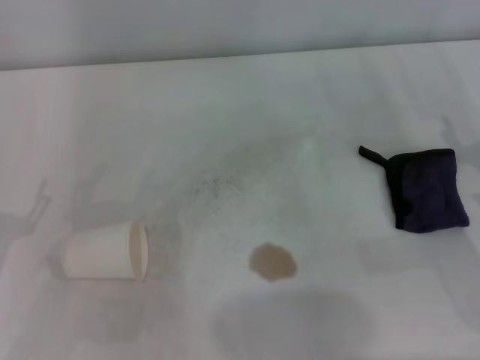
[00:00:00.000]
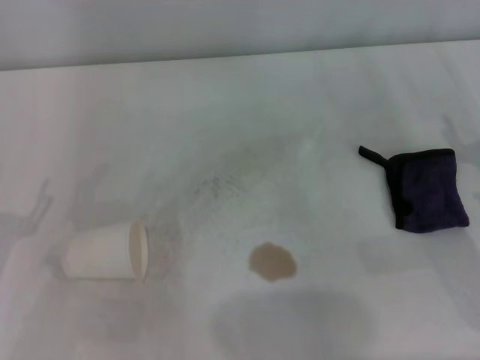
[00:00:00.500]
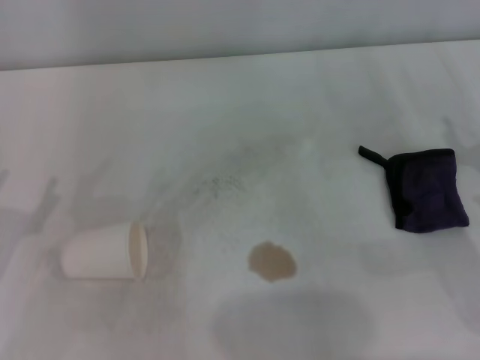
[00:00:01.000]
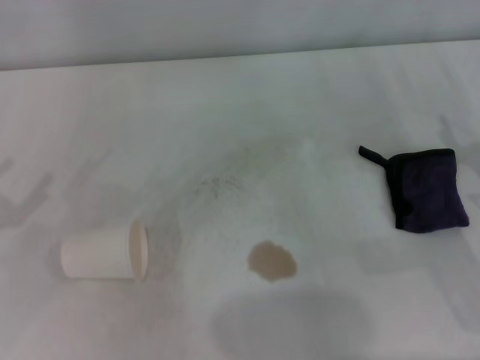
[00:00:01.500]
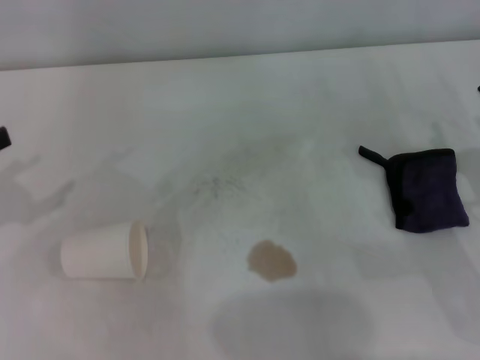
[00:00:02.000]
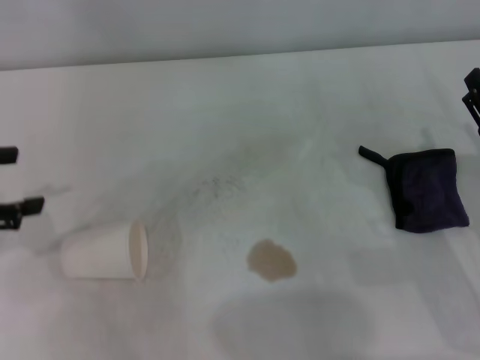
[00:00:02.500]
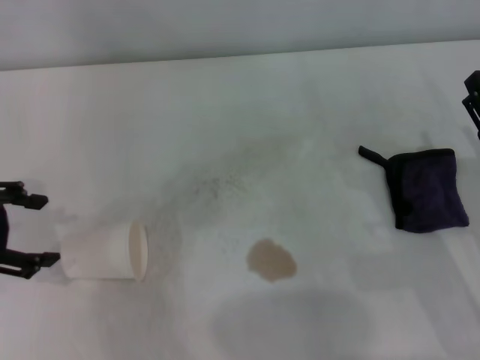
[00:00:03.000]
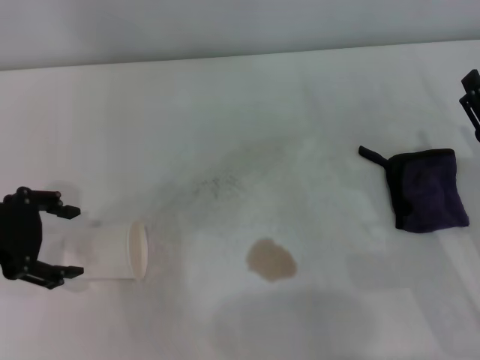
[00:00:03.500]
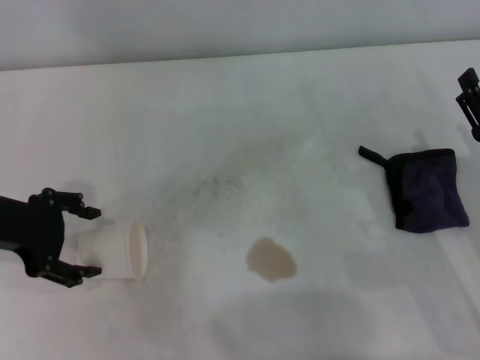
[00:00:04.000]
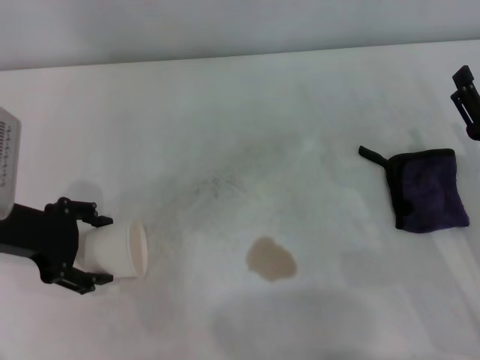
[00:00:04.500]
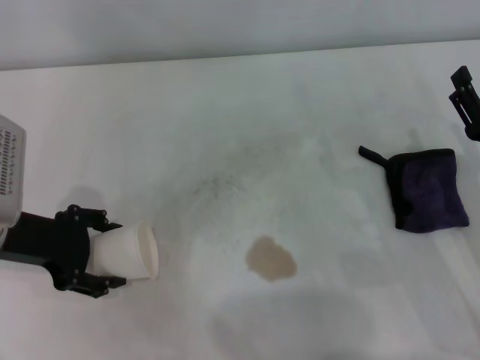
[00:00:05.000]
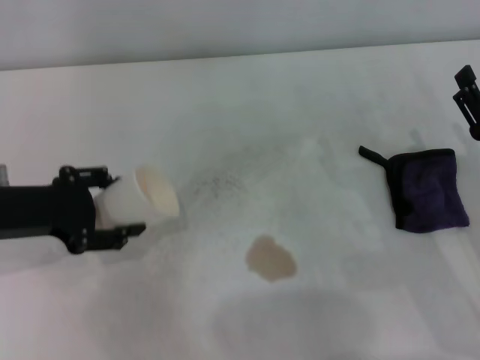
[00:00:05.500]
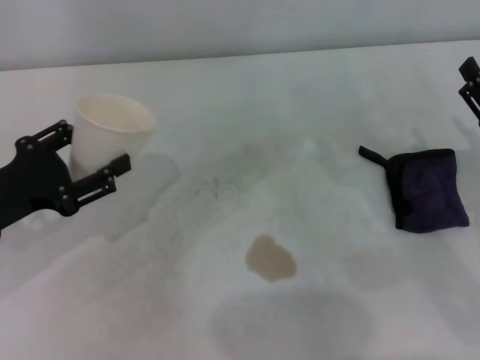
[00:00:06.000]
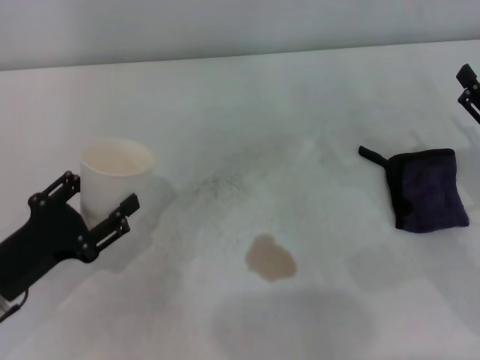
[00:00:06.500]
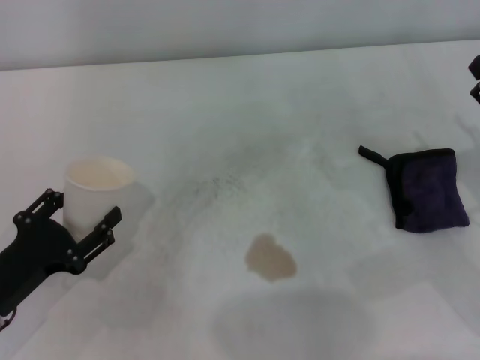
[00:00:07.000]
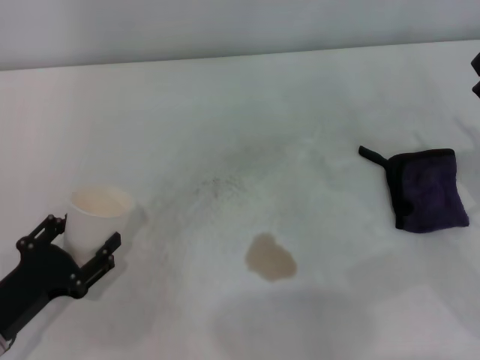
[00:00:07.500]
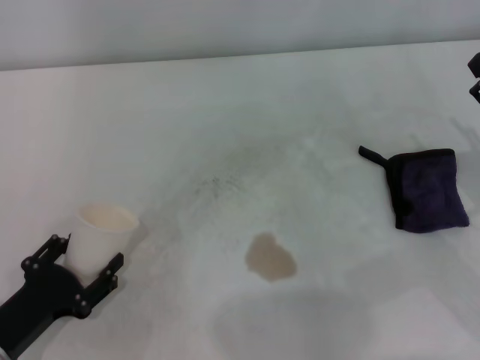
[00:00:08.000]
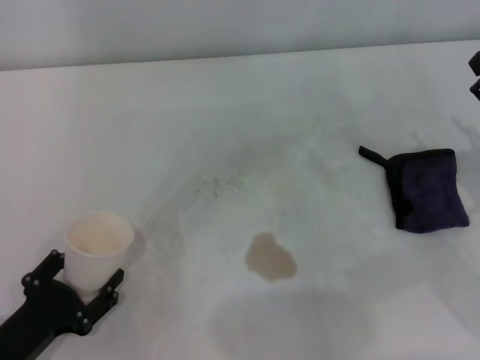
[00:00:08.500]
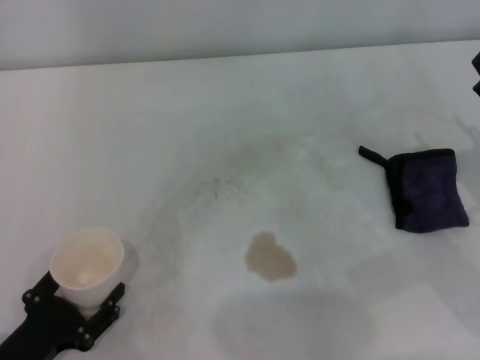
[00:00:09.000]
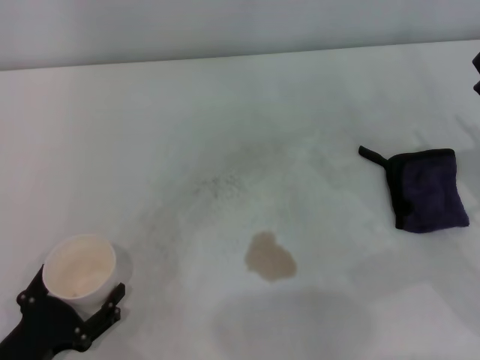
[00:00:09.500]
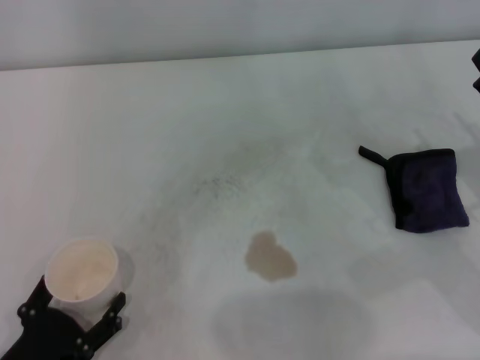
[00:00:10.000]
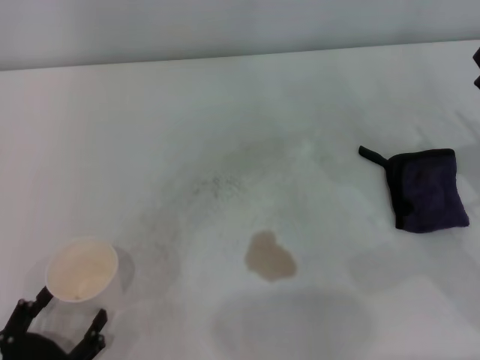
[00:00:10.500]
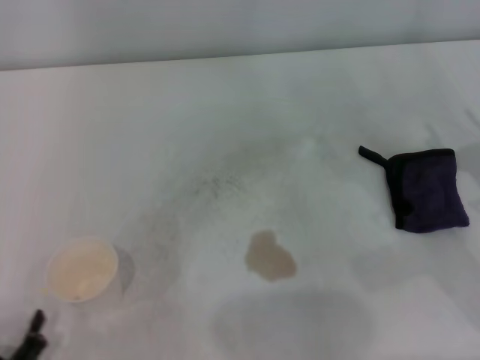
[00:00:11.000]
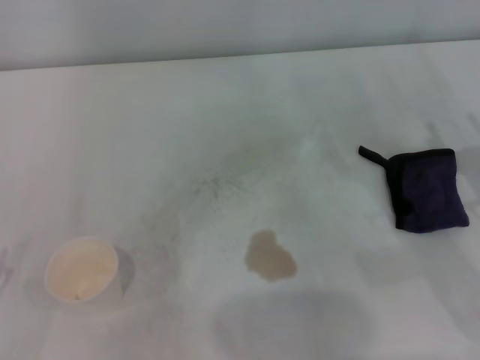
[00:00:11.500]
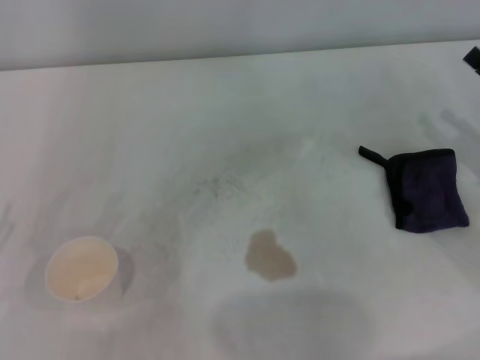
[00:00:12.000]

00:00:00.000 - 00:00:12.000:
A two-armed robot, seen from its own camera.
Step, 00:00:00.000 - 00:00:04.500: Grasp the paper cup with the left gripper.
Step, 00:00:05.000 - 00:00:09.500: Stand the paper cup upright with the left gripper.
00:00:02.000 - 00:00:04.000: The left gripper shifts about 10 cm to the right.
00:00:04.000 - 00:00:06.000: The left gripper shifts by some 5 cm, and closes.
00:00:06.000 - 00:00:08.000: The left gripper heads downward and backward, covering about 15 cm.
00:00:08.000 - 00:00:10.000: The left gripper goes roughly 5 cm backward, and opens.
00:00:10.000 - 00:00:12.000: The left gripper heads to the left and upward, covering roughly 10 cm.

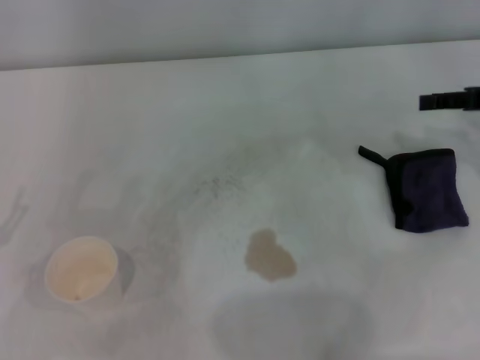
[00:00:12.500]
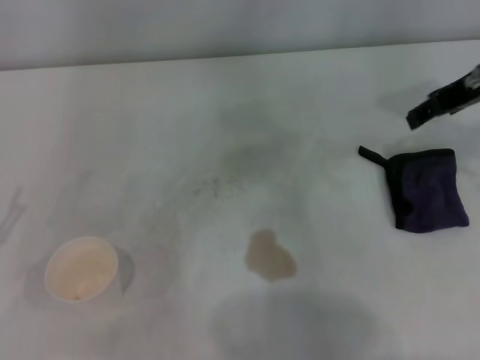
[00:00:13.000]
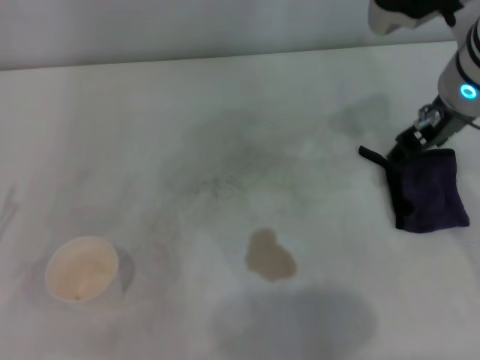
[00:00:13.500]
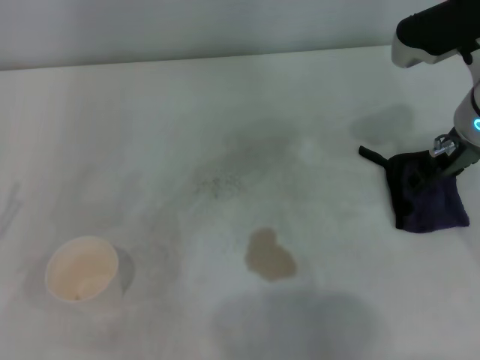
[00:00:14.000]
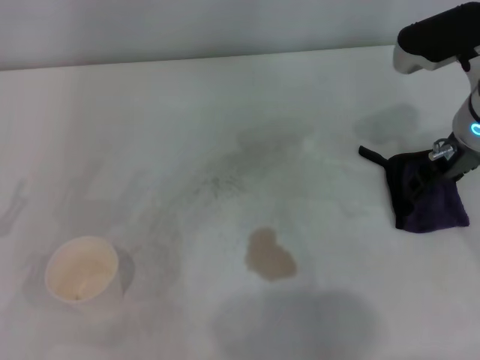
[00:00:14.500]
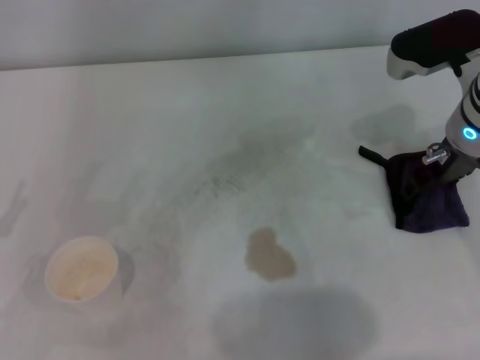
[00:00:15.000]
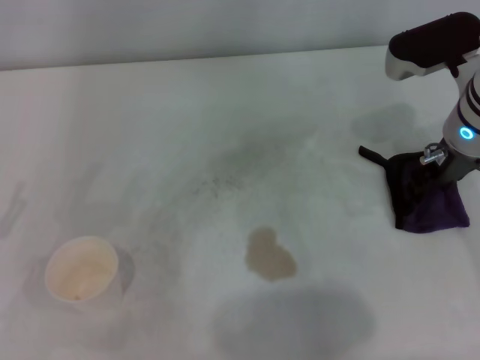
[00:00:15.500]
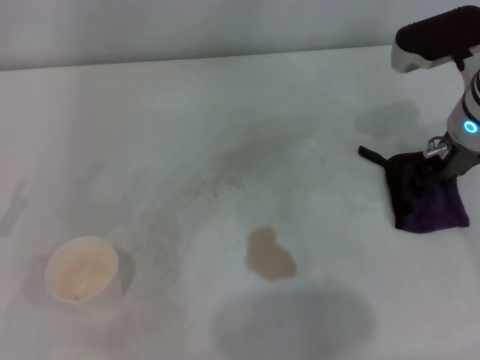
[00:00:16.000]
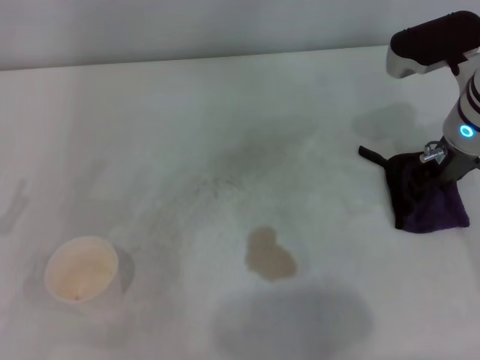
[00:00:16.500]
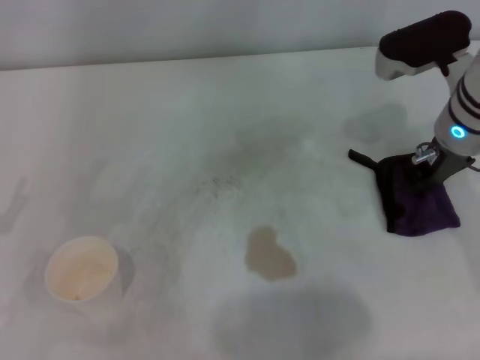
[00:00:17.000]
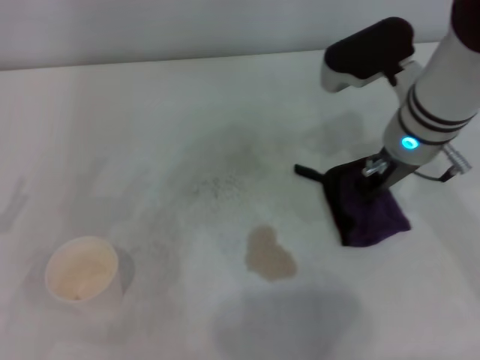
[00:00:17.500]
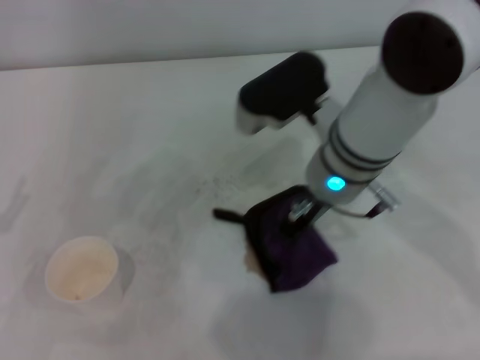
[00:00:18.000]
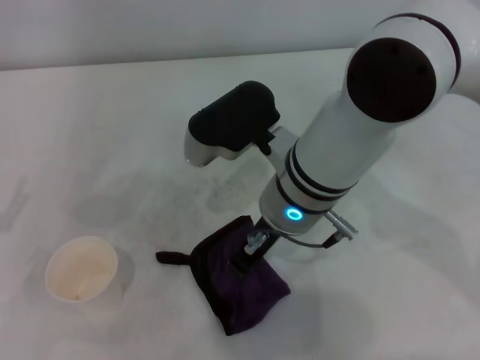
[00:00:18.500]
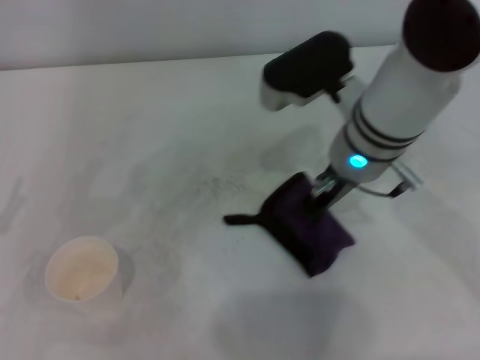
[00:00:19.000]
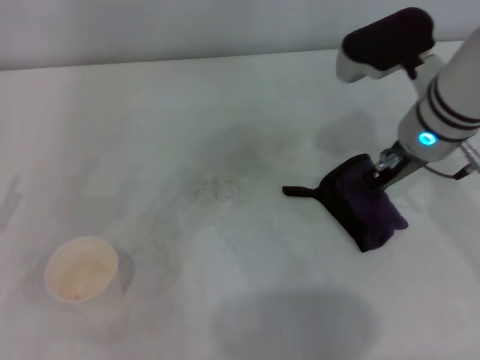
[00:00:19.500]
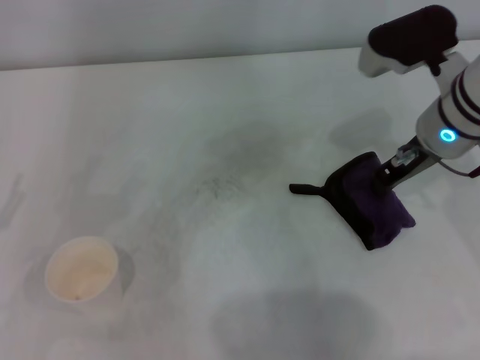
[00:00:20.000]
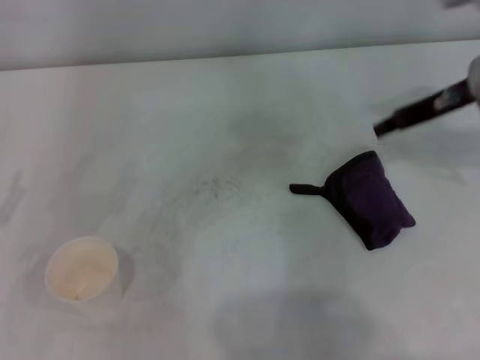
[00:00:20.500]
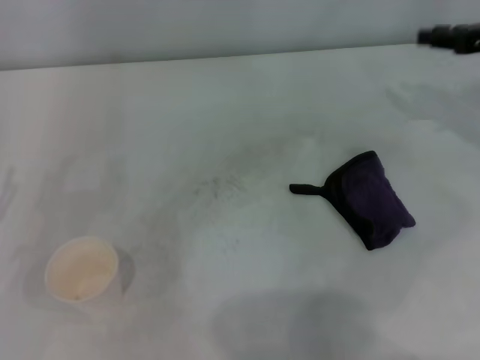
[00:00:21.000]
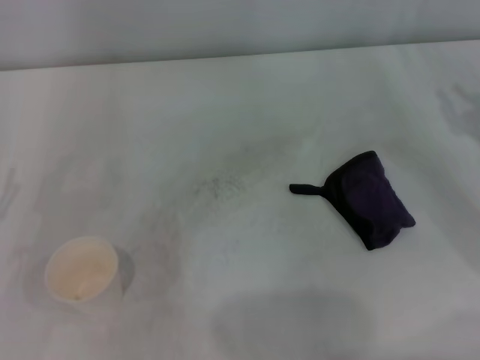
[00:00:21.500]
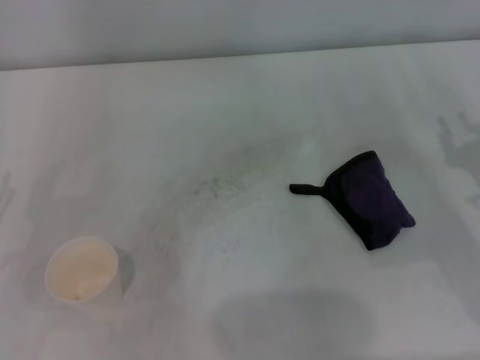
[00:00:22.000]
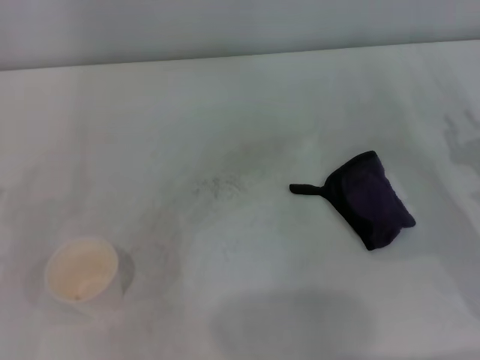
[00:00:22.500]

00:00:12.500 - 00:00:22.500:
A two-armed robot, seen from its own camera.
Step, 00:00:12.500 - 00:00:16.000: Grasp the rag with the right gripper.
Step, 00:00:17.000 - 00:00:19.000: Wipe the stains off the table with the right gripper.
Step, 00:00:19.500 - 00:00:20.000: Place the rag on the table with the right gripper.
00:00:12.500 - 00:00:14.500: The right gripper is displaced to the left by some 10 cm.
00:00:14.500 - 00:00:16.500: The right gripper closes up.
00:00:16.500 - 00:00:18.500: The right gripper heads to the left, covering about 20 cm, and closes its fingers.
00:00:18.500 - 00:00:20.500: The right gripper travels to the right by about 20 cm, and opens.
00:00:20.500 - 00:00:22.500: The right gripper moves downward, backward and to the right, roughly 20 cm.
